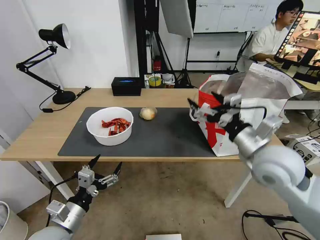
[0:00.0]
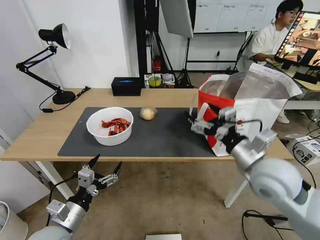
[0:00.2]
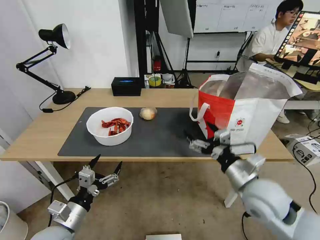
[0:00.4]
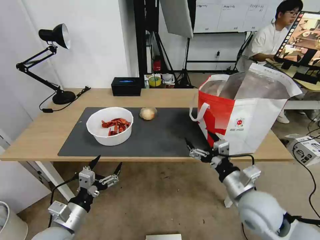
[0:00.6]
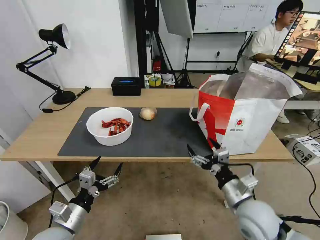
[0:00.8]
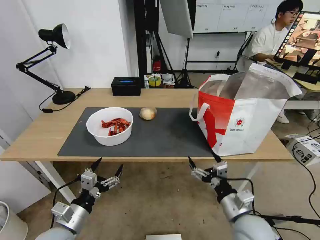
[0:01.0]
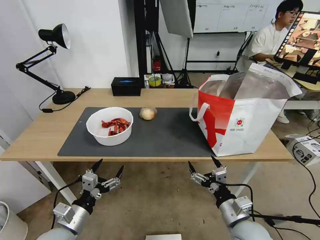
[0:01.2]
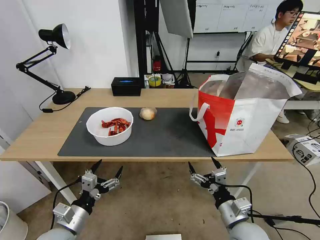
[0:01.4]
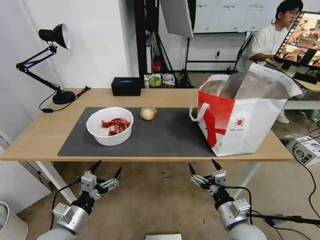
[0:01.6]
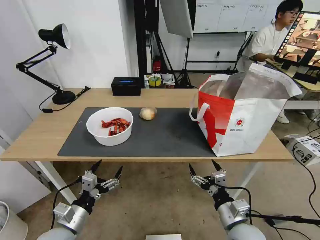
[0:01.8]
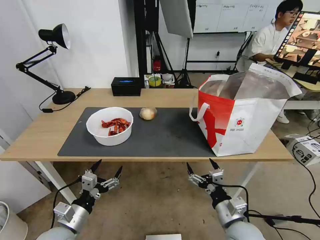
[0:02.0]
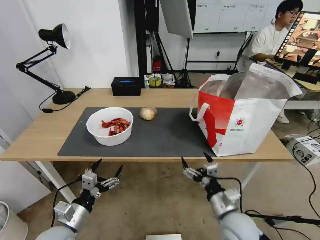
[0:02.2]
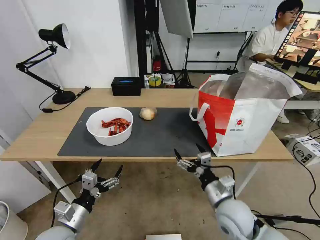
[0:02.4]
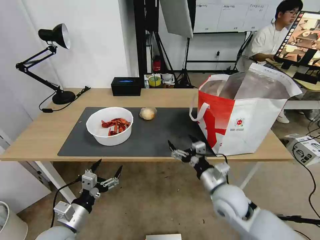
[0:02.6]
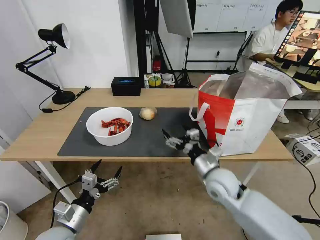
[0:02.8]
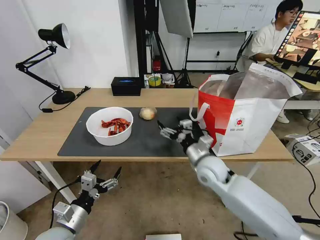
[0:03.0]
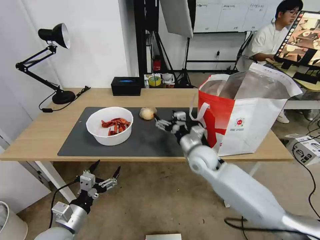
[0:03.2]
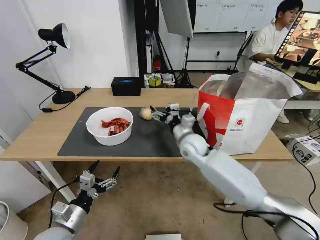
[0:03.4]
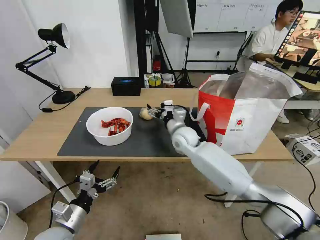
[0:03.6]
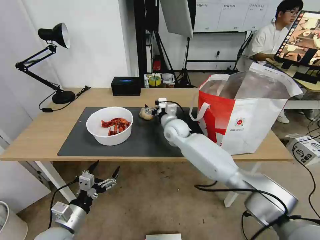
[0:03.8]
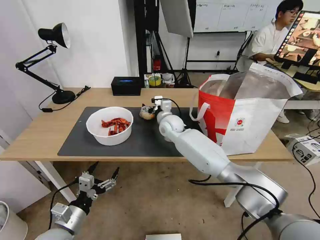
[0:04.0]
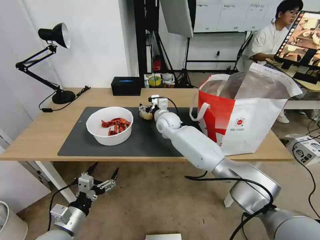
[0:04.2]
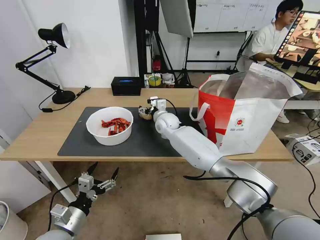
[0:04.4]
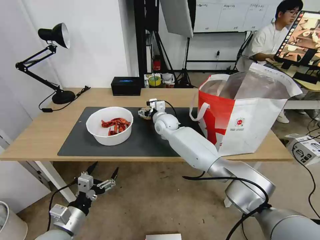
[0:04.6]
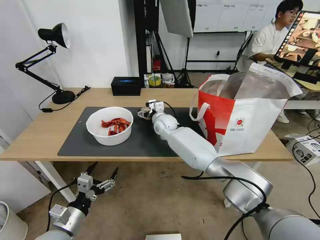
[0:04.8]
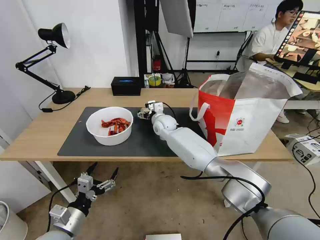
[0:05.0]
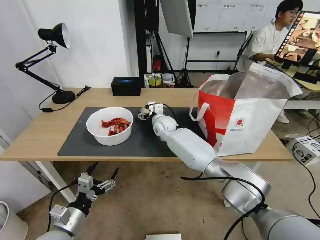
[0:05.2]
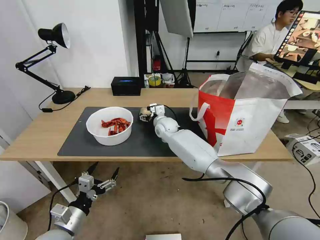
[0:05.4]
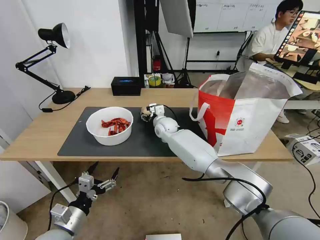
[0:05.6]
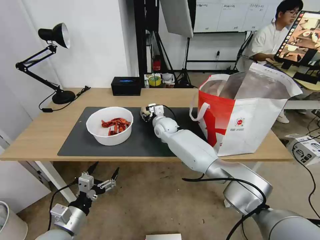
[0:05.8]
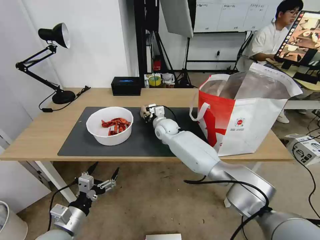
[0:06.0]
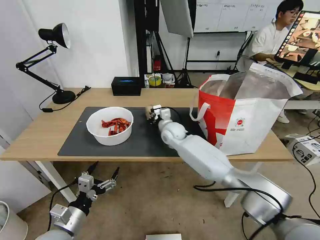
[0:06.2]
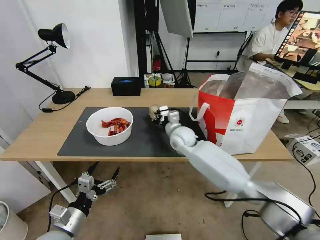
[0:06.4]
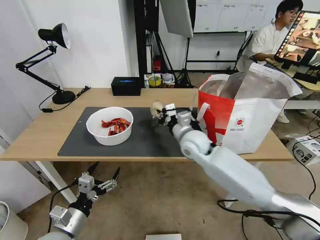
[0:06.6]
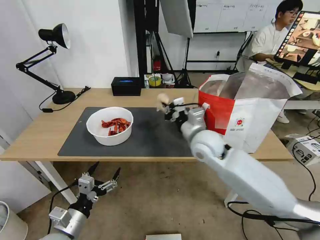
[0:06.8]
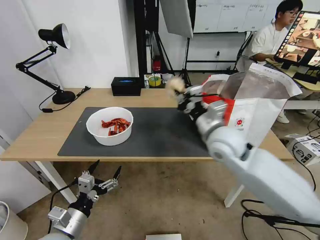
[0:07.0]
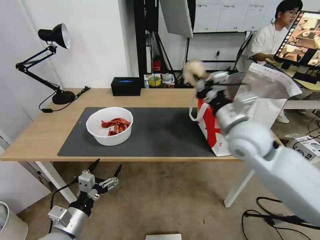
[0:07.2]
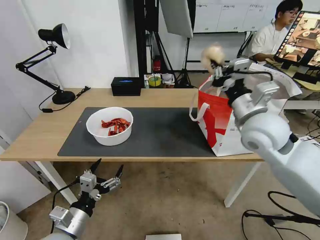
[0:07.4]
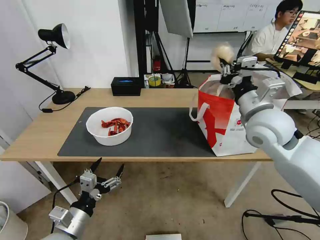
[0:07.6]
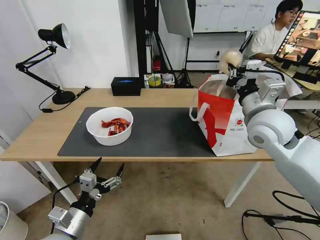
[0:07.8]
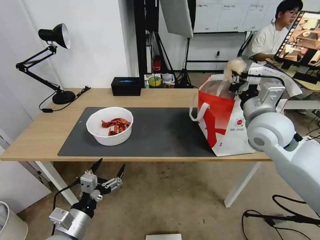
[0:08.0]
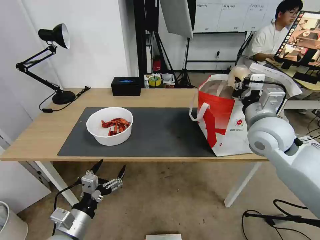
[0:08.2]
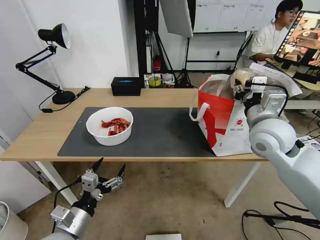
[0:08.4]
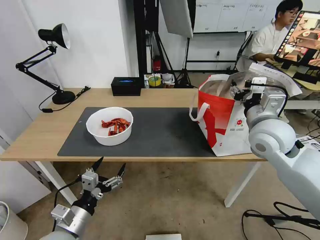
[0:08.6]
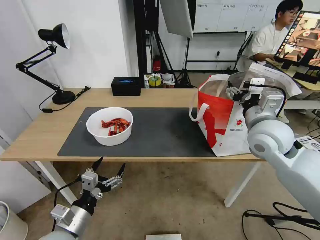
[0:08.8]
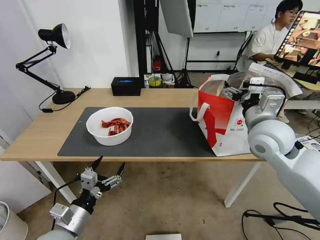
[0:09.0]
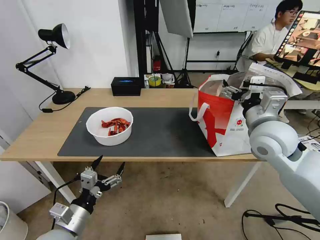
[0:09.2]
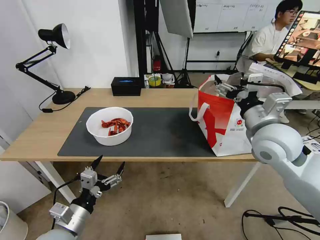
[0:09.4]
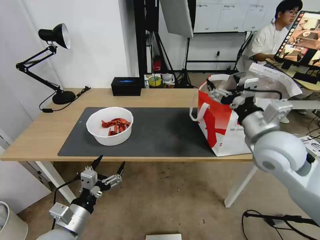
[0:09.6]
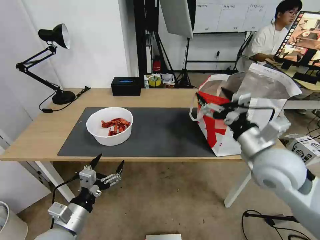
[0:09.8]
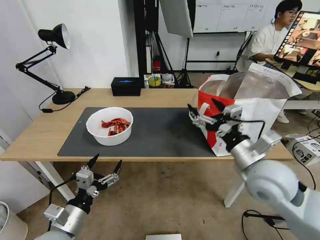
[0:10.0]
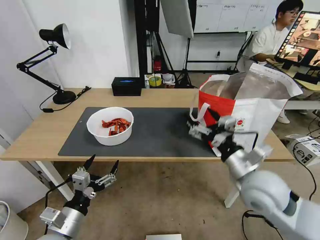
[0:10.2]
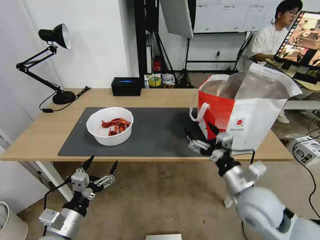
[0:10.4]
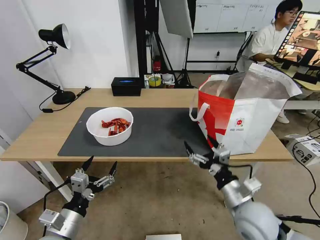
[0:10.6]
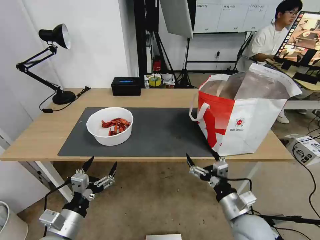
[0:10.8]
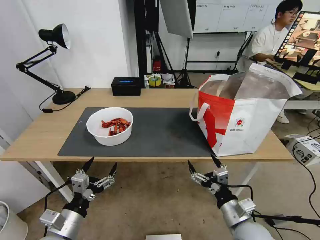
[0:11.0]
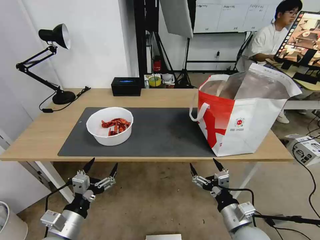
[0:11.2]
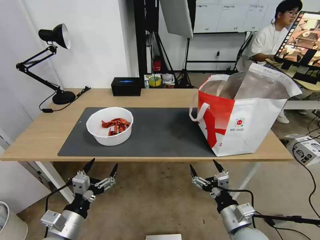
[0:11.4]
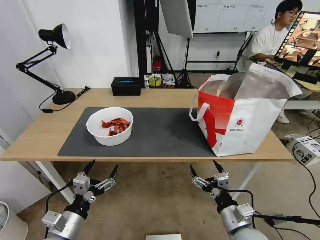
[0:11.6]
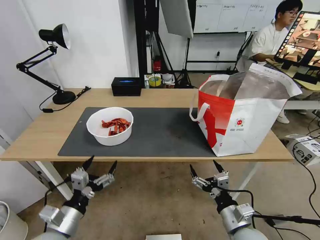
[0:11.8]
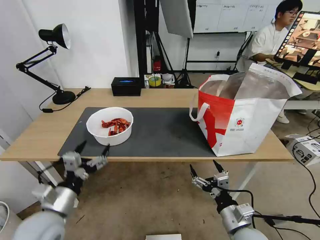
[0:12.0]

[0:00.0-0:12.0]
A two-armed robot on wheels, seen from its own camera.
Task of the whole recording: Pick up the trash from the table and place it into the takeout bag.
0:00.0 to 0:01.6: The right gripper shifts about 25 cm downward and backward.
0:01.6 to 0:03.0: The right gripper goes roughly 20 cm forward.
0:03.0 to 0:04.4: The right gripper moves forward and to the left, approximately 25 cm.
0:04.4 to 0:06.0: The right gripper closes up.
0:06.0 to 0:07.6: The right gripper goes roughly 35 cm to the right, upward and backward.
0:07.6 to 0:09.0: The right gripper opens its fingers.
0:09.0 to 0:10.4: The right gripper is displaced backward and downward by approximately 20 cm.
0:10.4 to 0:12.0: The left gripper shifts by some 5 cm. Meanwhile the right gripper heads downward and backward, covering approximately 10 cm.

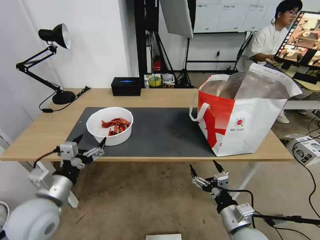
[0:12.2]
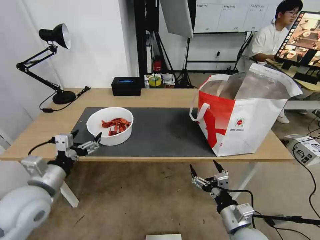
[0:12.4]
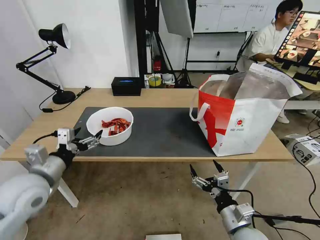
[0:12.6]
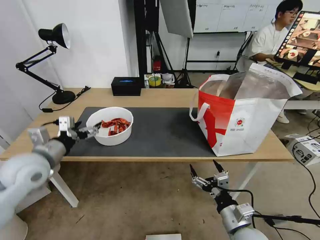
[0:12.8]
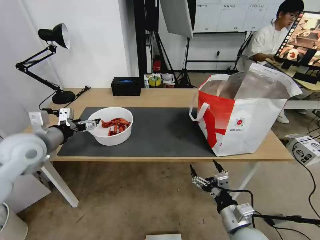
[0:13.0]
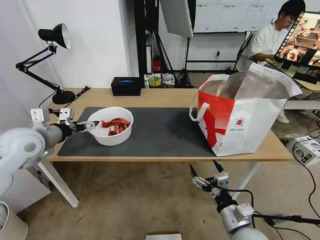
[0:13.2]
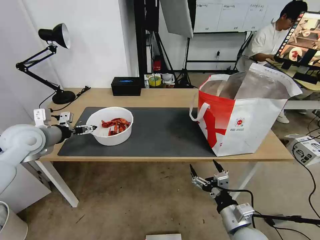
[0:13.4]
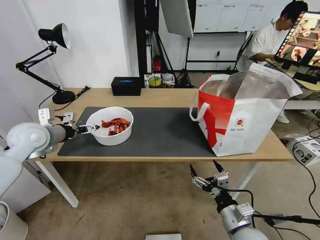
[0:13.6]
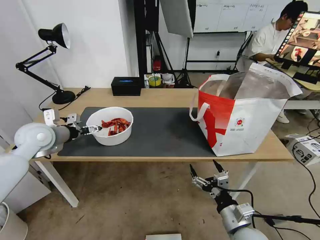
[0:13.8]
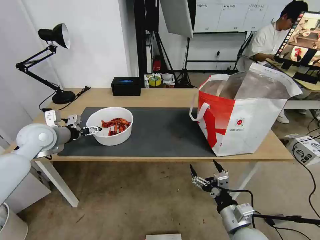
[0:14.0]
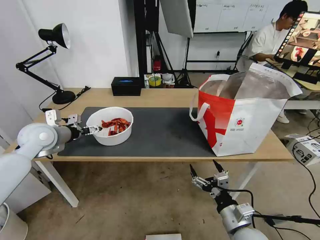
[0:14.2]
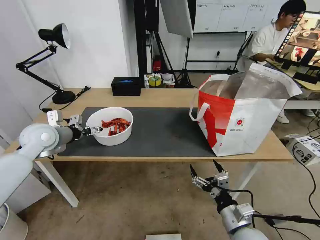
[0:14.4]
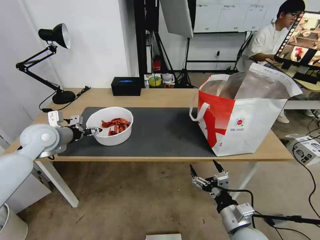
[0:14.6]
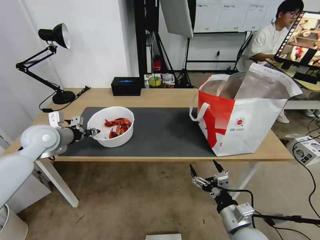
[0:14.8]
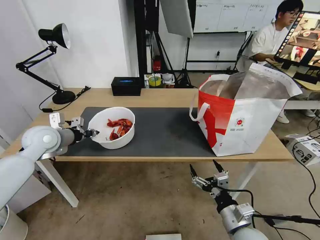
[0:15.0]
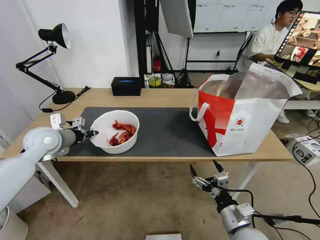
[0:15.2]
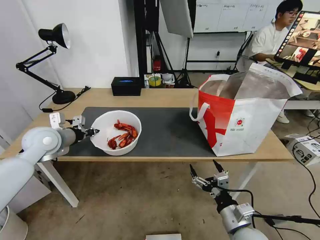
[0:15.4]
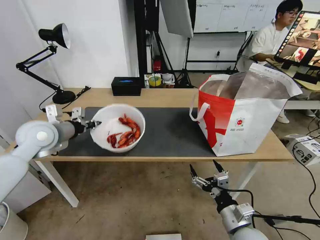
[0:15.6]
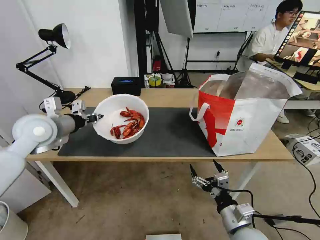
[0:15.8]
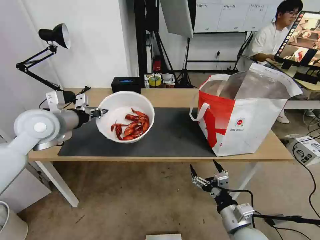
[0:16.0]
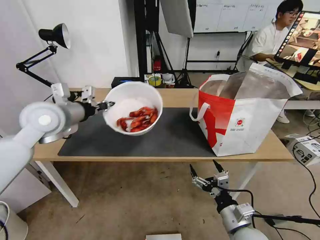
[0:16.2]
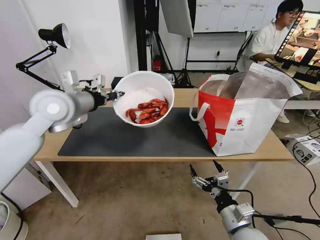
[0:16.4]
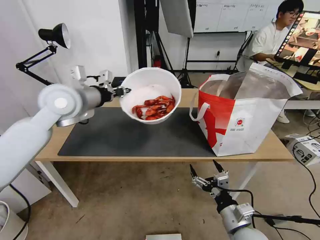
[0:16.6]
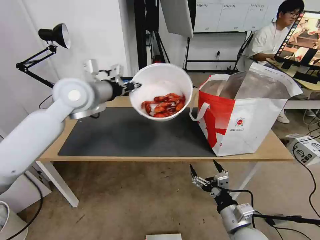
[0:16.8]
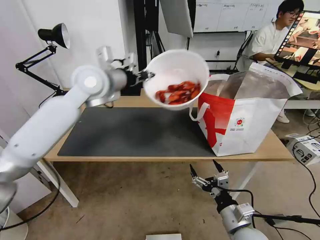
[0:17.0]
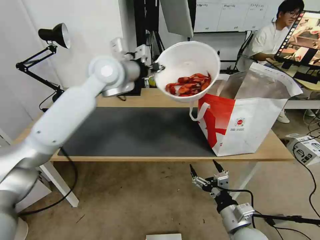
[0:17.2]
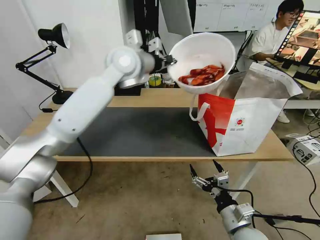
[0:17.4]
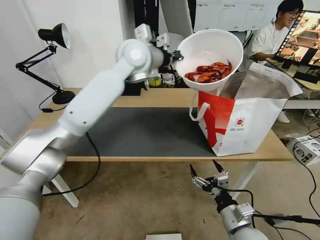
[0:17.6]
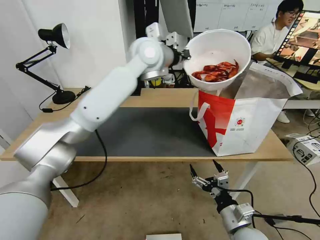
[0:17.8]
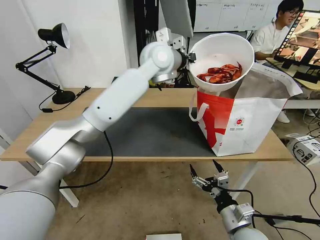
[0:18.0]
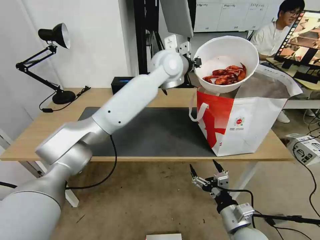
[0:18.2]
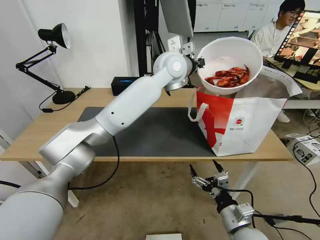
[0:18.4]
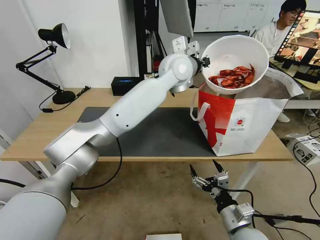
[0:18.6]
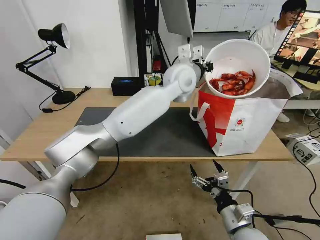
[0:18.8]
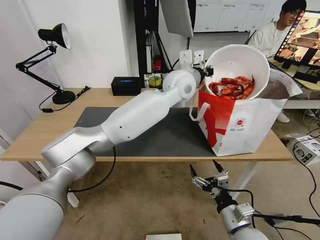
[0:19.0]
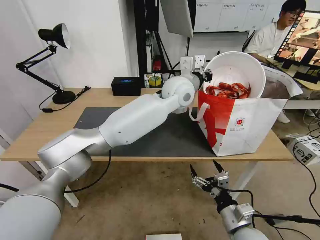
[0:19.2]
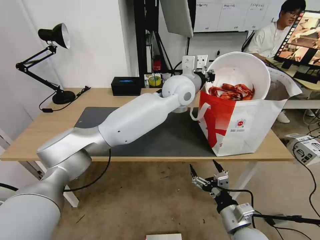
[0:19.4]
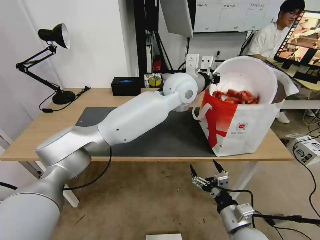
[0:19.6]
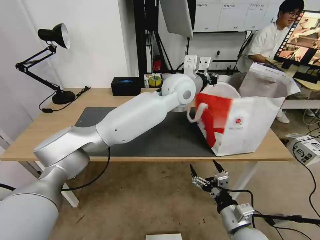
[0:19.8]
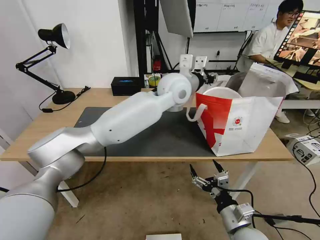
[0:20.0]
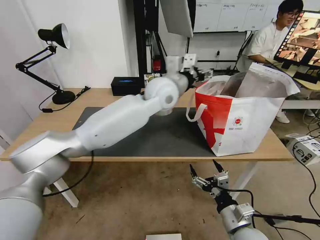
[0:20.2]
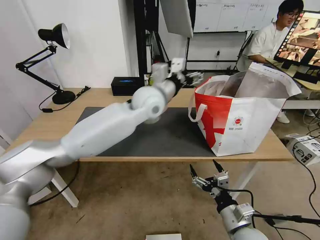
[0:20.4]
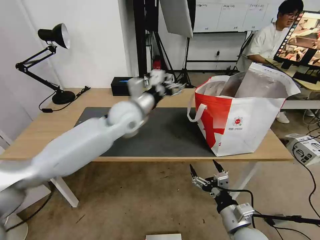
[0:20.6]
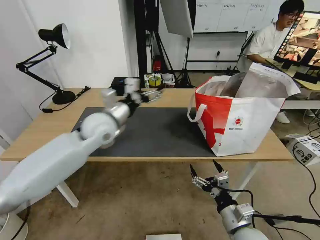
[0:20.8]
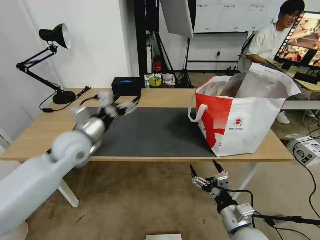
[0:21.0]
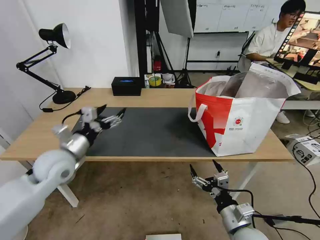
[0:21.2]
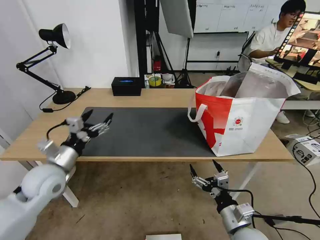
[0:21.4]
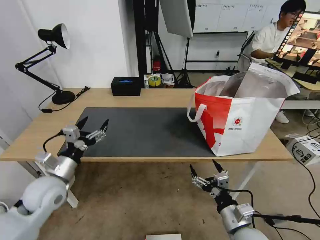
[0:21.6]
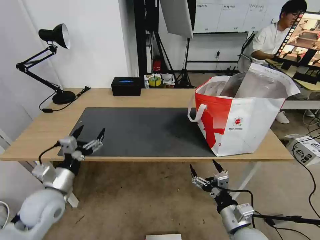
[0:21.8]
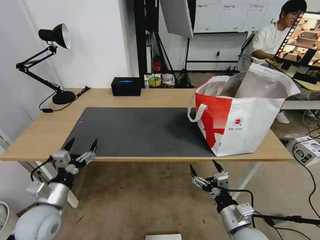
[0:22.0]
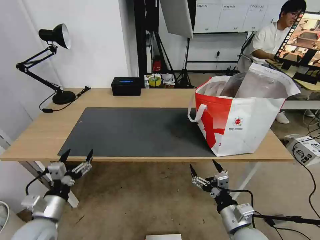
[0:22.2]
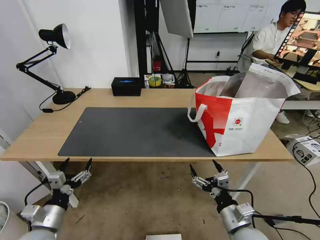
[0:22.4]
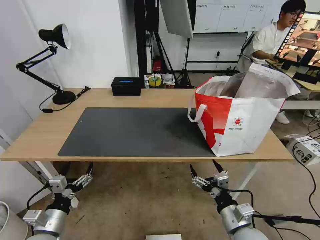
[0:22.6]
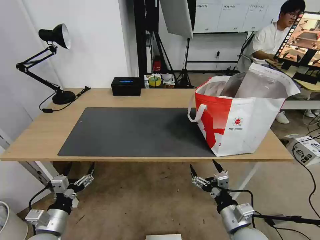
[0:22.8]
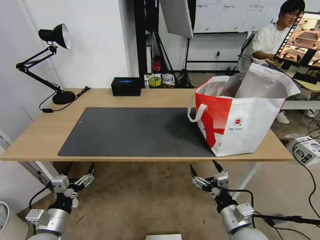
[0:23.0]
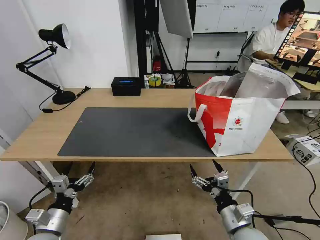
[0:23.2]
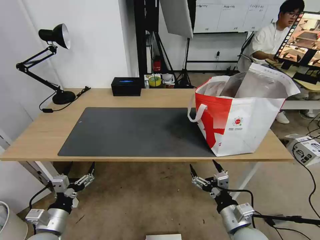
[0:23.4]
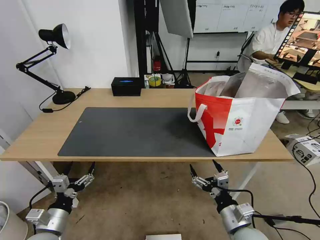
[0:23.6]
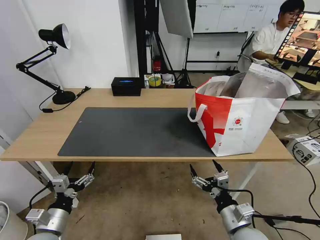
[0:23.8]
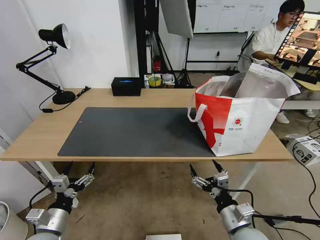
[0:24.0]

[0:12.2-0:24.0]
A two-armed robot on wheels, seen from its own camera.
Task of the whole recording: Pick up the trash from the table and place it into the takeout bag.
0:12.2 to 0:13.6: The left gripper shifts roughly 20 cm forward and to the left.
0:13.6 to 0:15.2: The left gripper closes.
0:15.2 to 0:16.6: The left gripper heads upward and to the right, covering about 15 cm.
0:16.6 to 0:18.2: The left gripper travels to the right and forward by some 30 cm.
0:18.2 to 0:19.6: The left gripper ends up roughly 10 cm from where it was.
0:19.6 to 0:21.0: The left gripper shifts roughly 30 cm to the left, and opens.
0:21.0 to 0:22.6: The left gripper travels backward and downward by roughly 30 cm.
0:22.6 to 0:24.0: Both grippers stay about where they are.
